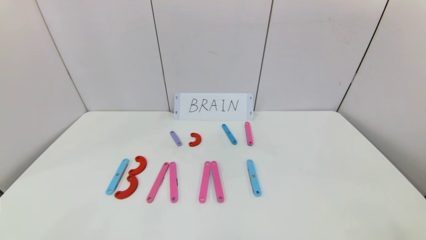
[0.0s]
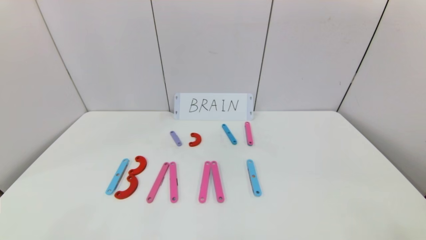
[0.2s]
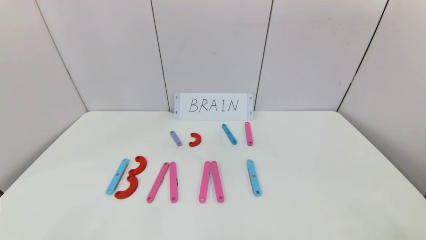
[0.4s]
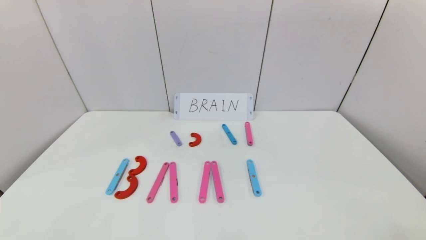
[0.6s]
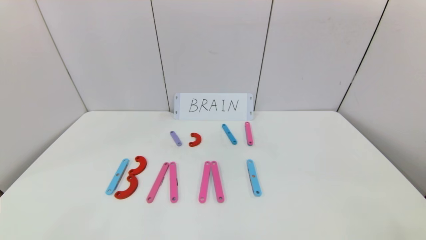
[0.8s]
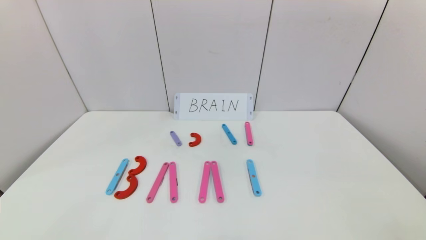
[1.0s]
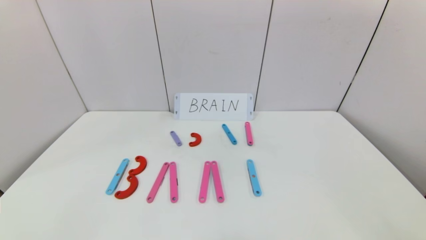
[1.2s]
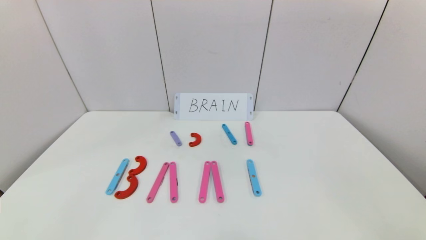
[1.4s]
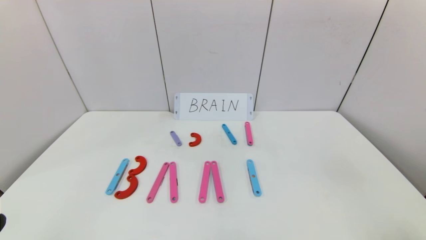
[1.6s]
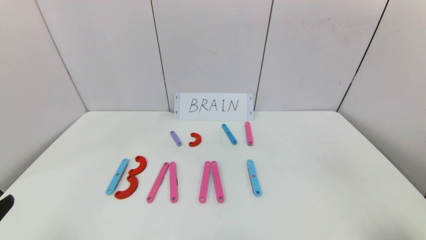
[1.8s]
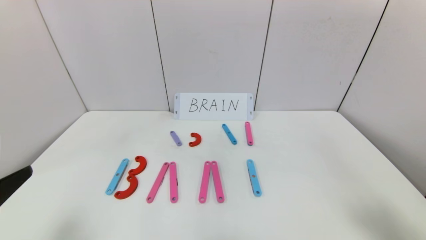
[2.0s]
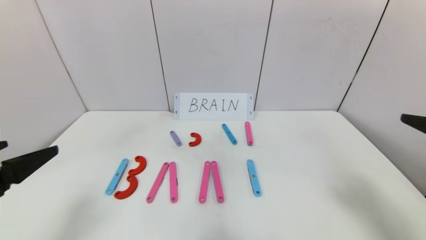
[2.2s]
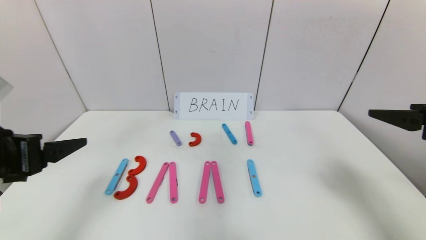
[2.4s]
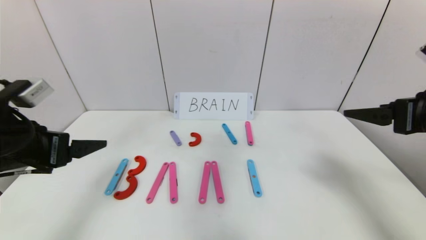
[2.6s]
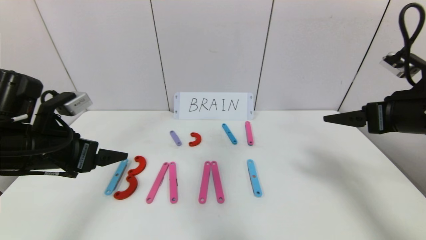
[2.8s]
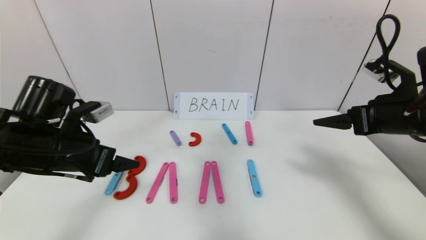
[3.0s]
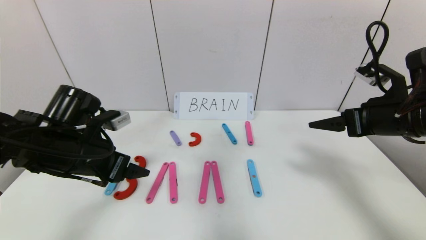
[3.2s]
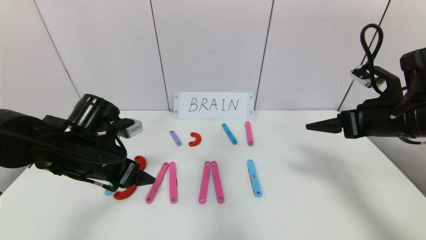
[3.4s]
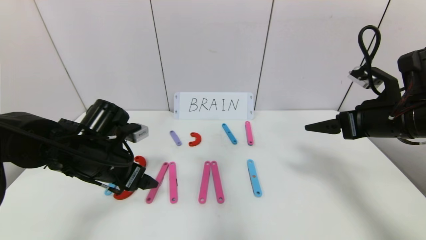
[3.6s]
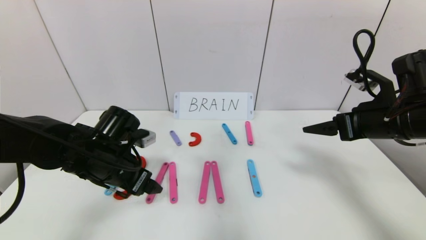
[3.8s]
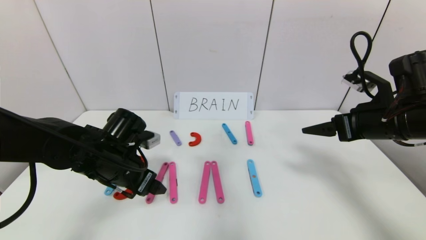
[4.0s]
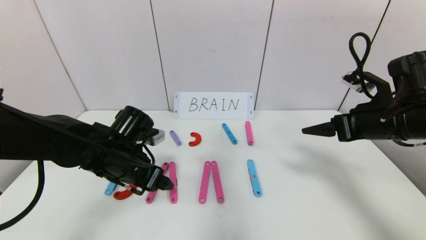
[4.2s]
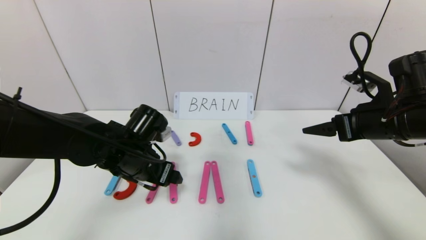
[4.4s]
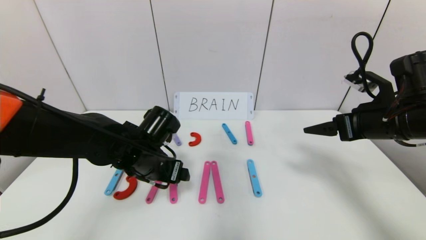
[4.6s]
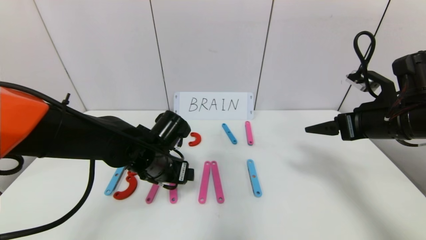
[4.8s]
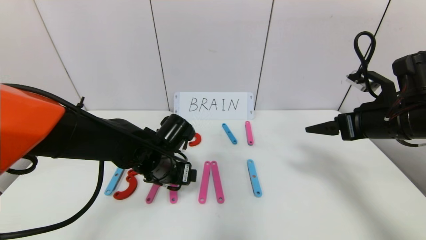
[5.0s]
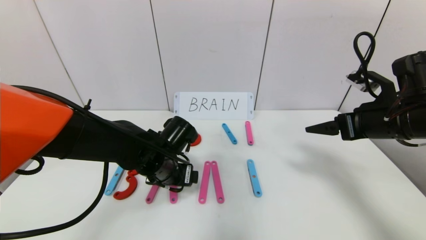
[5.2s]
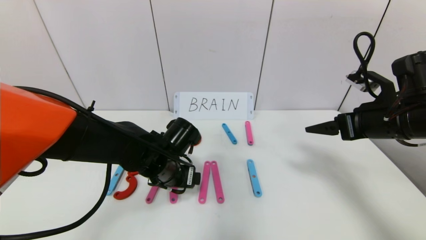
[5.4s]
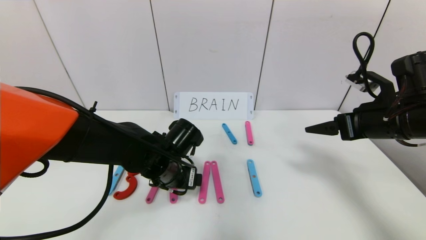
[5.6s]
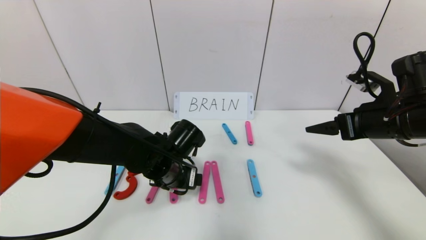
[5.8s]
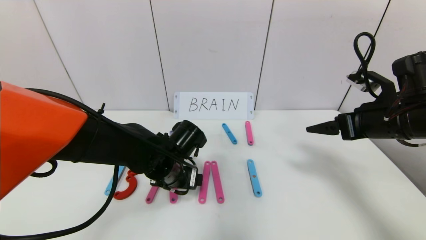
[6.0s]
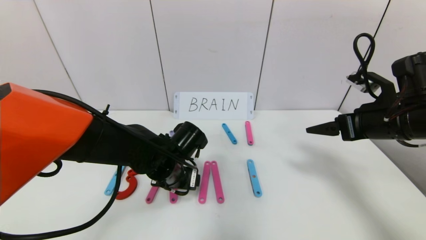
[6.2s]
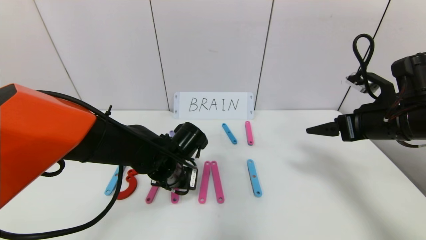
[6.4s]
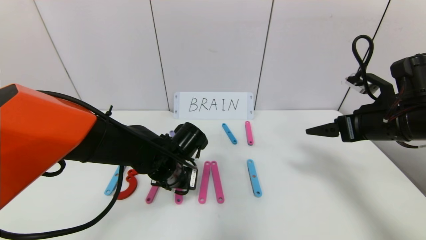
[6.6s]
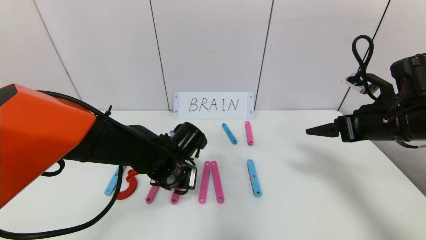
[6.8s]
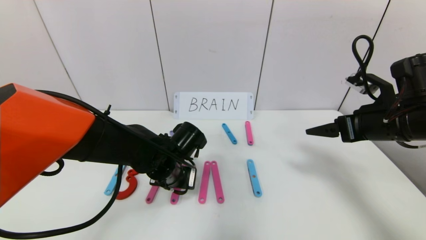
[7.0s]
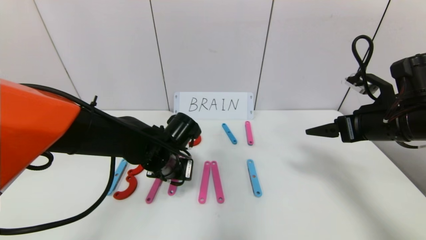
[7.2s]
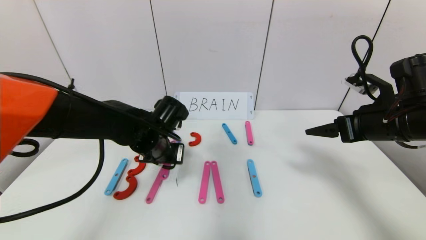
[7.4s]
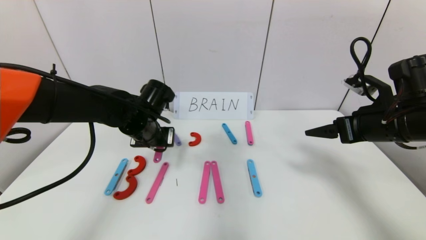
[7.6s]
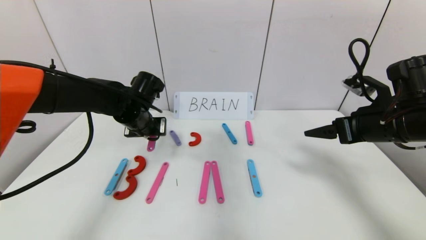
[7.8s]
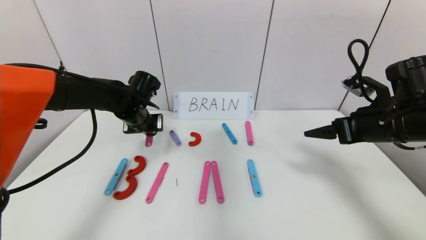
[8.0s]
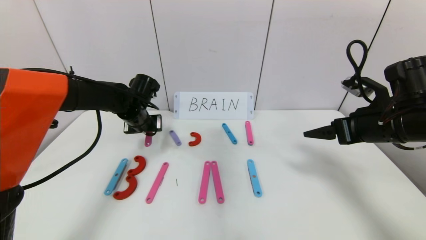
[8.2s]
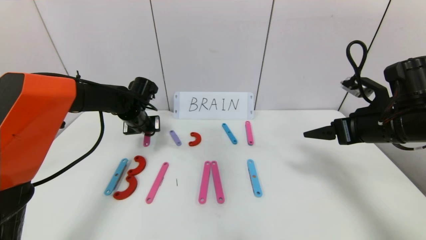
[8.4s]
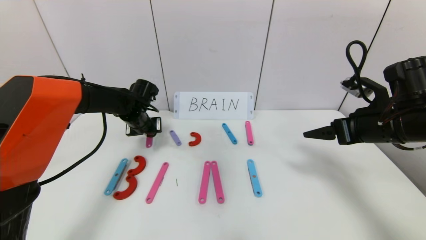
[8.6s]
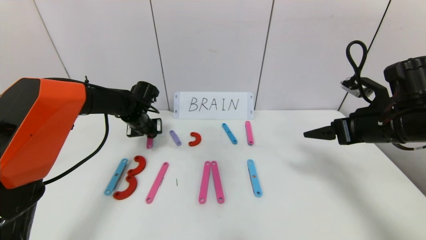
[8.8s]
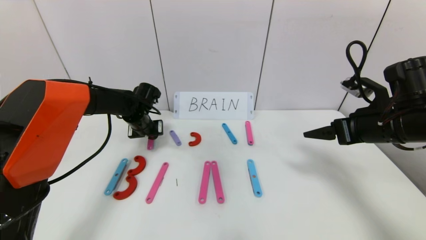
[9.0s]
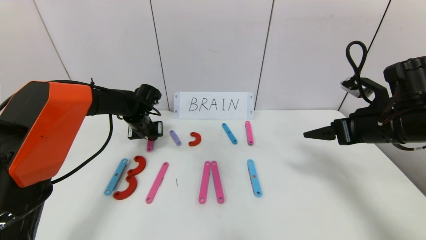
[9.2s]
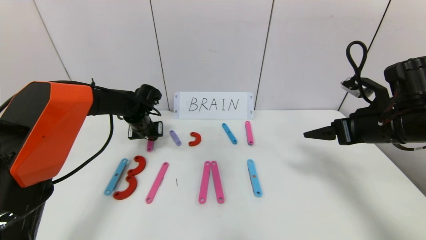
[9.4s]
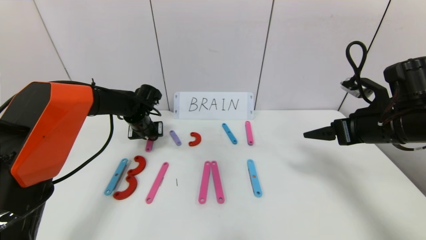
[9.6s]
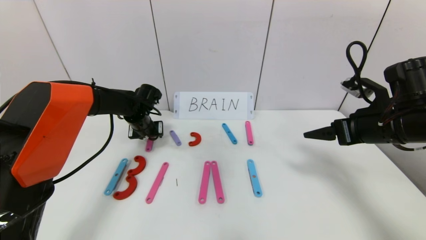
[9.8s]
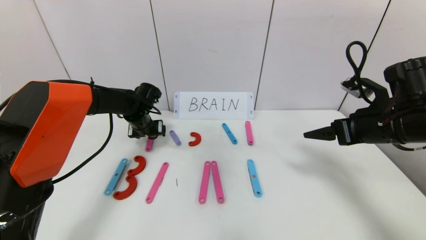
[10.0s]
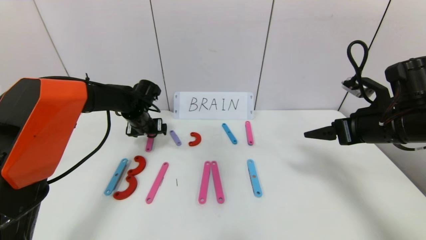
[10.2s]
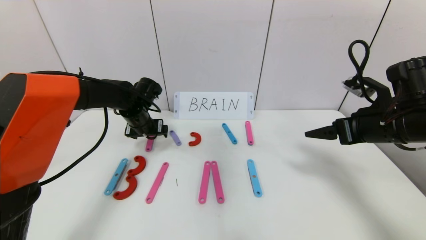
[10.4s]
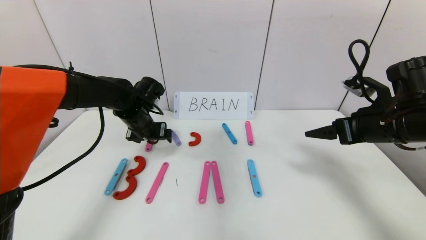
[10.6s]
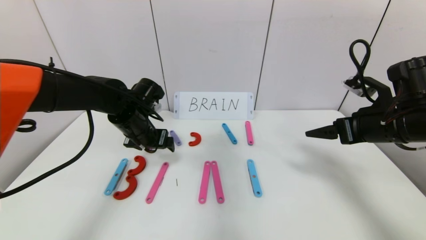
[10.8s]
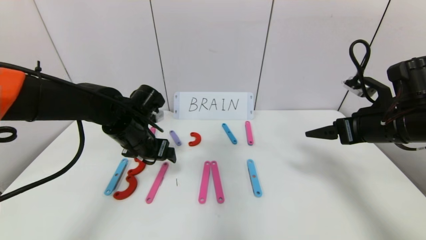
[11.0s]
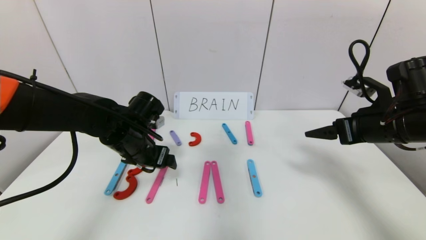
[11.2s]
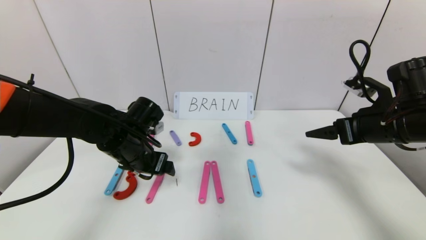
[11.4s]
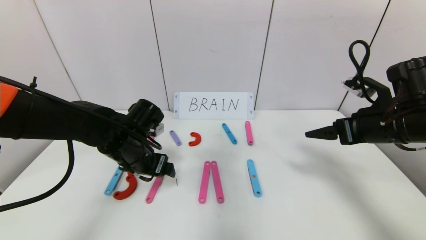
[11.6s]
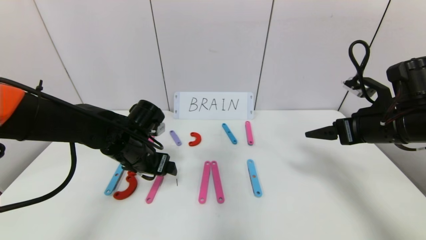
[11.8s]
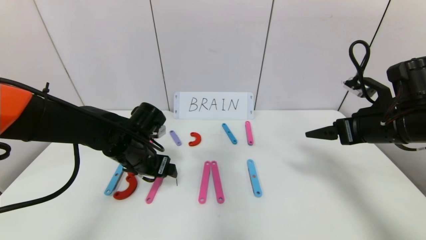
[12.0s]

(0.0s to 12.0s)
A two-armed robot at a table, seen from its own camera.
Task of the whole recording: rearrange the word baai as brain.
1.6s - 3.0s: Both grippers move forward, some 25 cm.
3.0s - 4.4s: The left gripper goes about 10 cm to the right and downward.
4.4s - 6.0s: The left gripper moves to the right, about 5 cm.
6.0s - 7.6s: The left gripper travels forward, to the left and upward by some 10 cm, and closes up.
7.6s - 9.0s: The left gripper is displaced forward by approximately 10 cm.
9.0s - 10.4s: The left gripper opens up.
10.4s - 12.0s: The left gripper travels backward by about 10 cm.

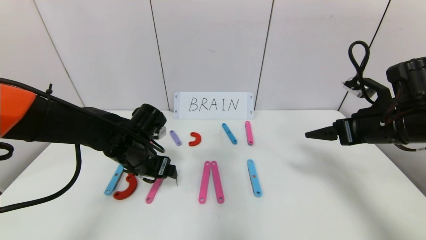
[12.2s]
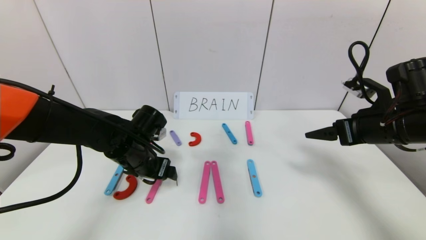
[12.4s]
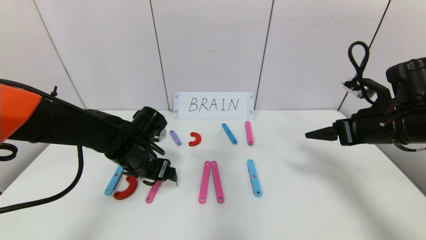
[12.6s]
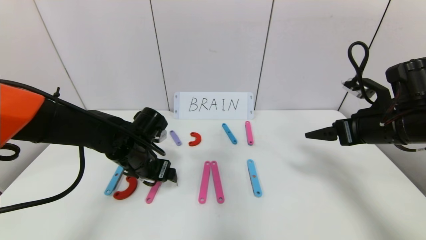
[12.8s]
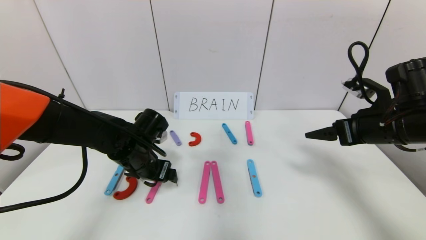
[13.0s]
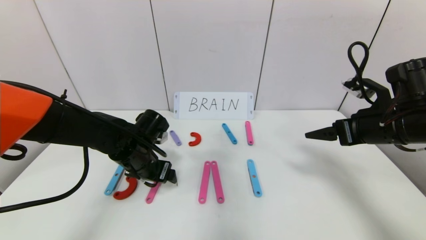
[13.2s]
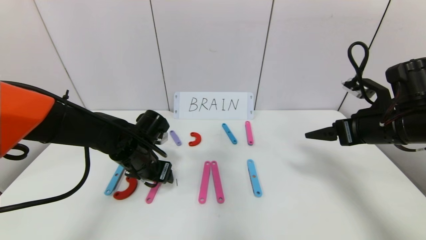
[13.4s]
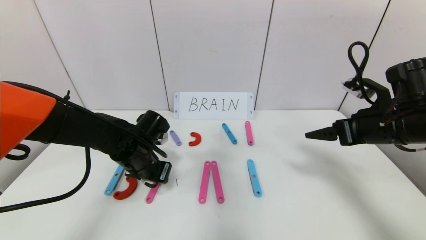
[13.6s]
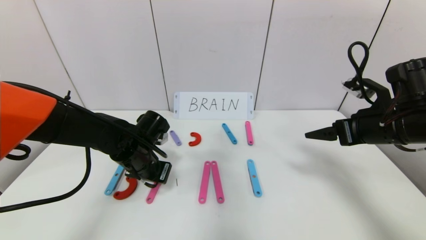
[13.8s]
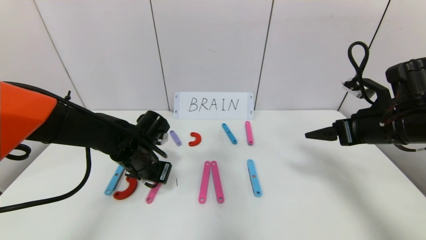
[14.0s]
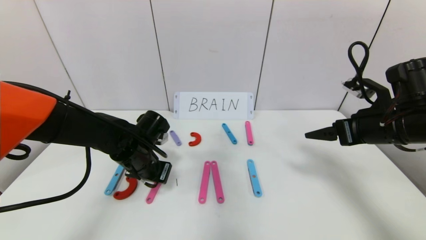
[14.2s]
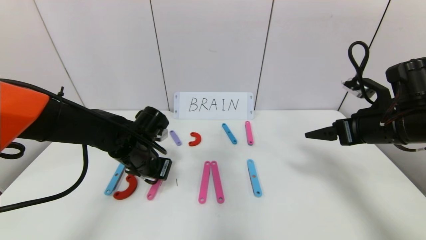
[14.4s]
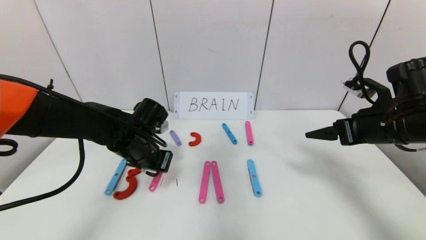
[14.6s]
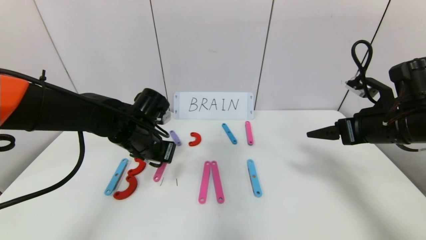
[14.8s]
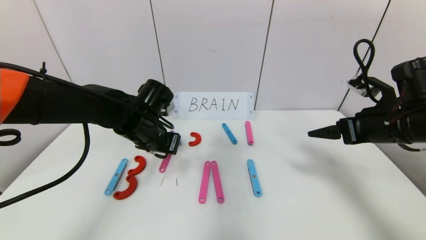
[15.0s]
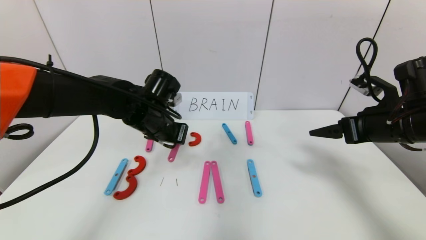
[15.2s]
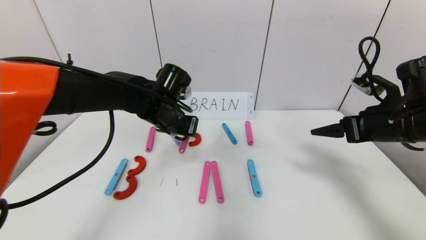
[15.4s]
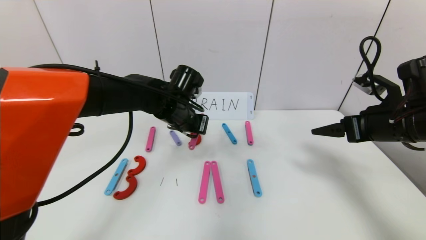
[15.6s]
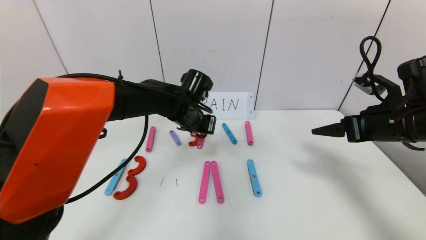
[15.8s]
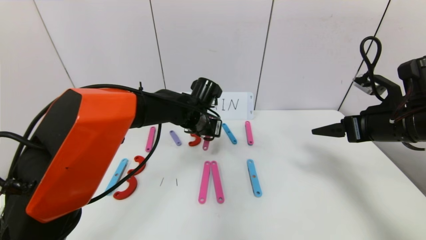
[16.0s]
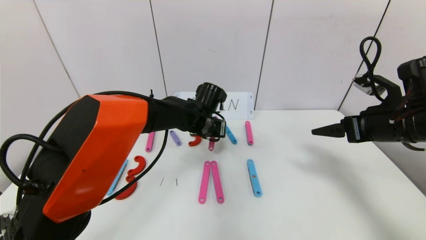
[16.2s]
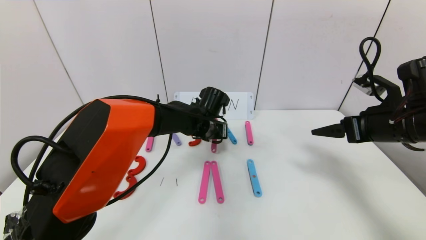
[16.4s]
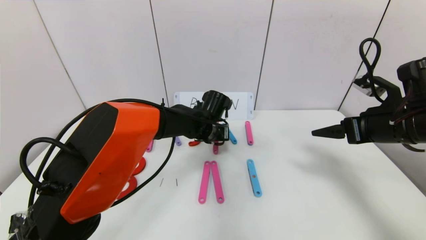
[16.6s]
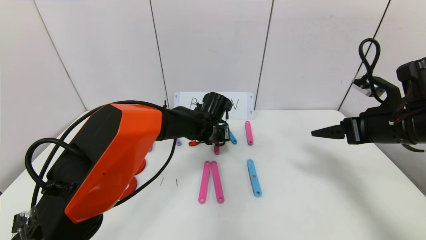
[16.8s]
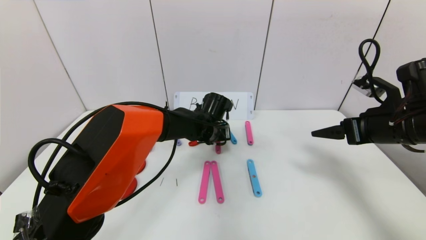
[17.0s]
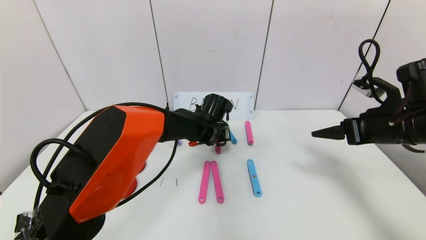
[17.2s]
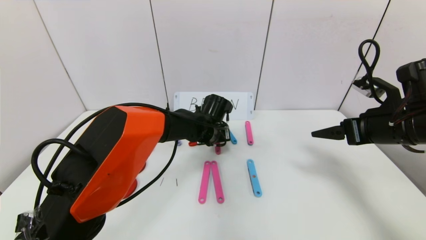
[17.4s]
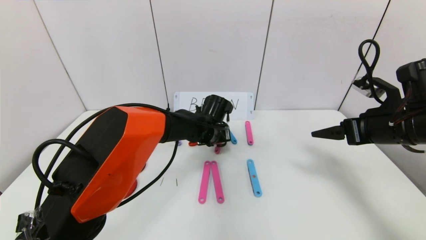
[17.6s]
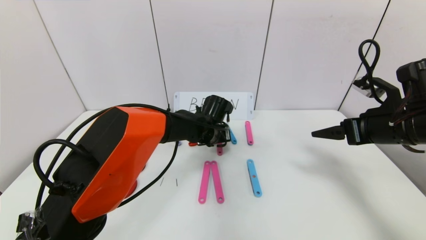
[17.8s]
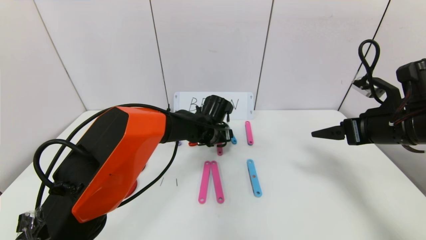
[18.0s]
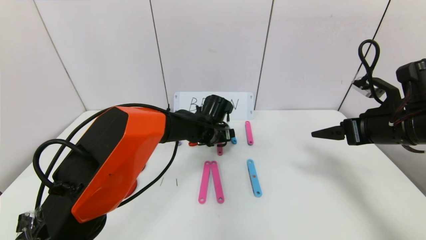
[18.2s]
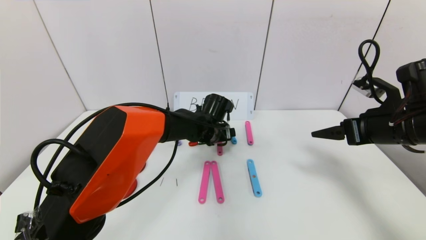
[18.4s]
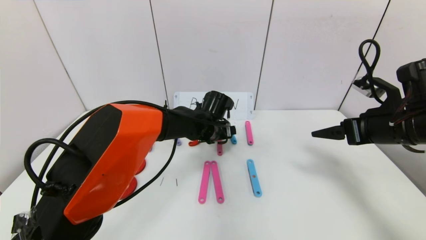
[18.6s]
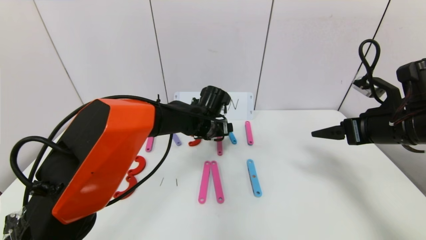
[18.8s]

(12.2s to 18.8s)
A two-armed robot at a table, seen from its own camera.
Task of the whole recording: rearrange the word baai as brain.
Step, 12.2s - 18.6s: Disassemble the second character A.
12.2s - 13.8s: The left gripper closes its fingers.
13.8s - 15.4s: The left gripper moves upward and to the right, some 10 cm.
15.4s - 17.2s: The left gripper goes roughly 15 cm to the right, downward and forward.
17.2s - 18.8s: The left gripper opens.
